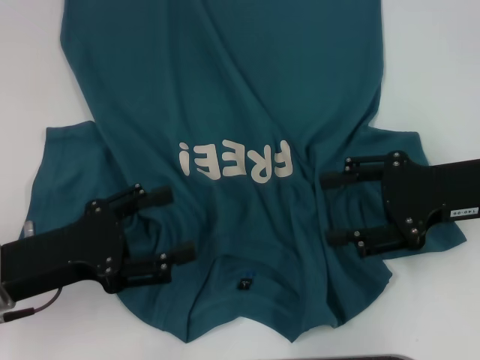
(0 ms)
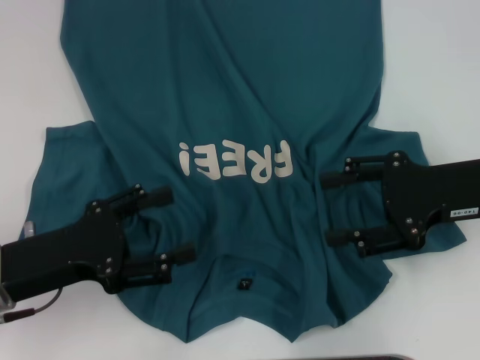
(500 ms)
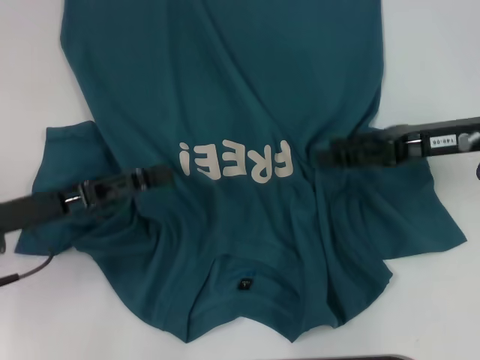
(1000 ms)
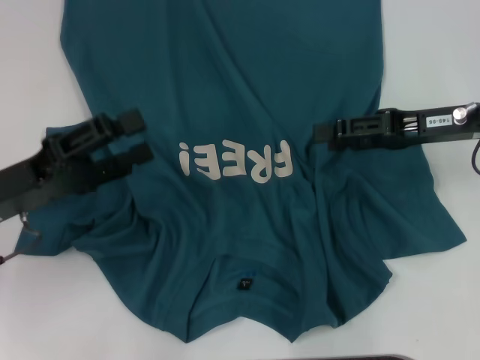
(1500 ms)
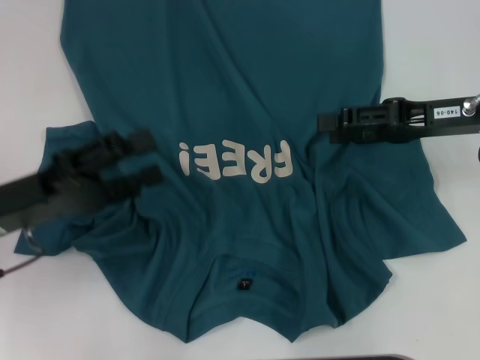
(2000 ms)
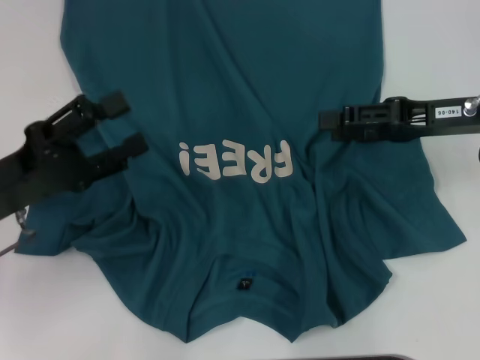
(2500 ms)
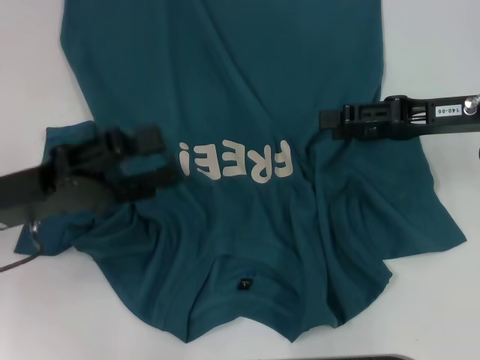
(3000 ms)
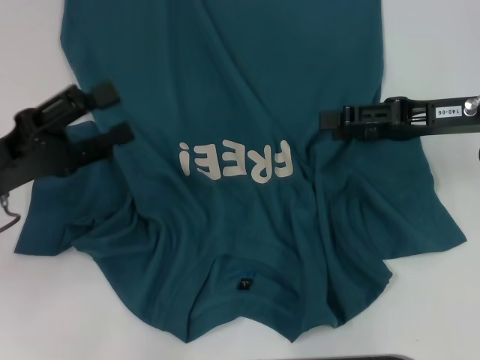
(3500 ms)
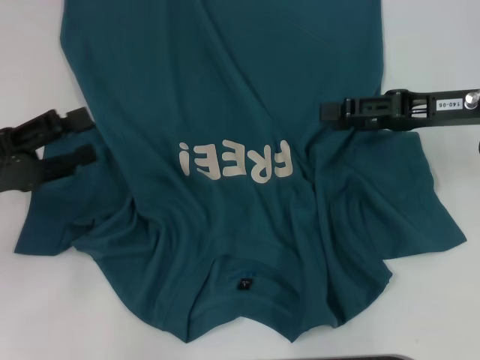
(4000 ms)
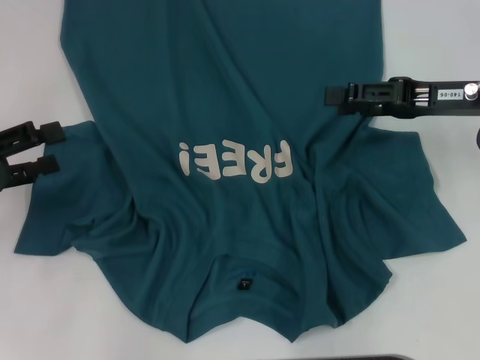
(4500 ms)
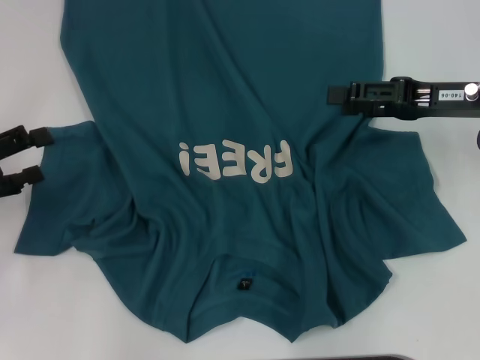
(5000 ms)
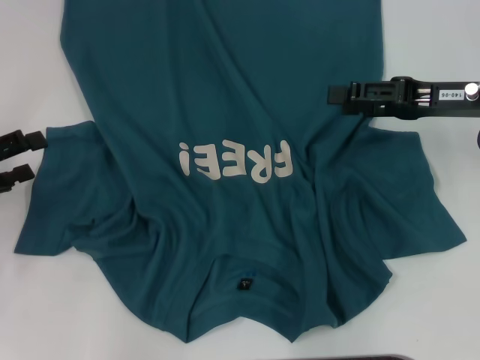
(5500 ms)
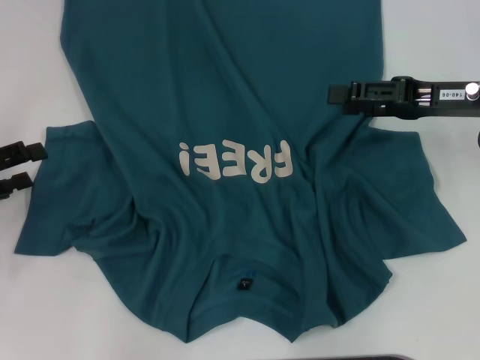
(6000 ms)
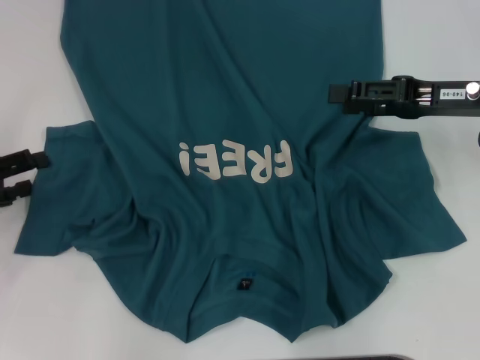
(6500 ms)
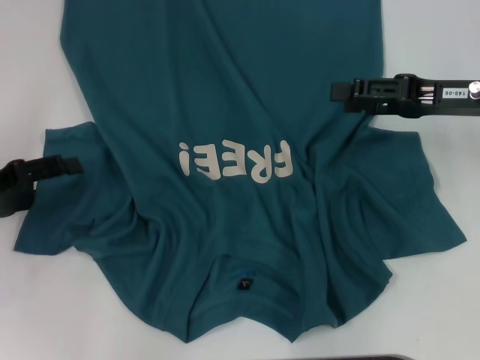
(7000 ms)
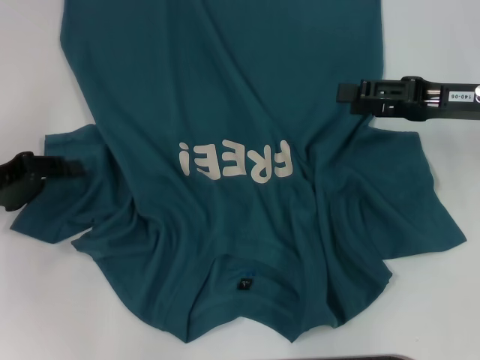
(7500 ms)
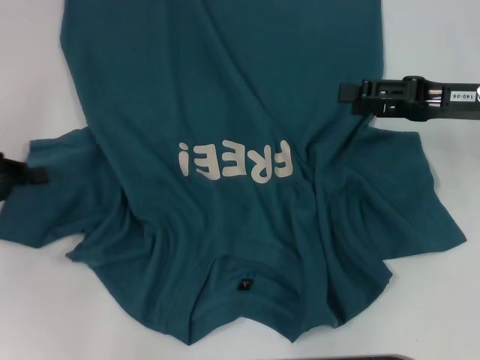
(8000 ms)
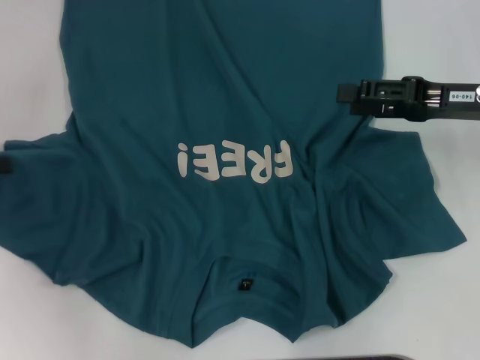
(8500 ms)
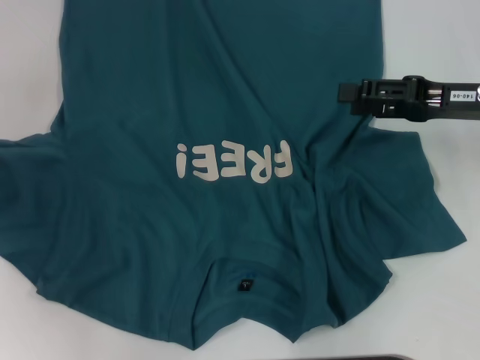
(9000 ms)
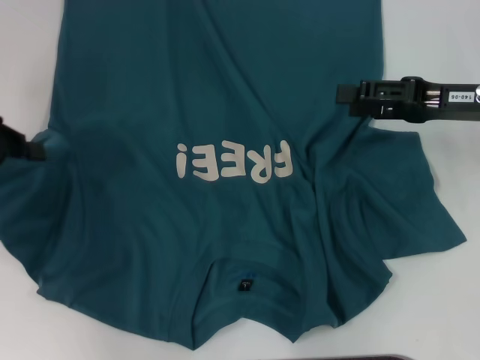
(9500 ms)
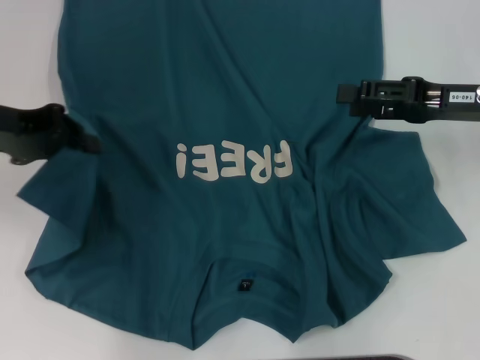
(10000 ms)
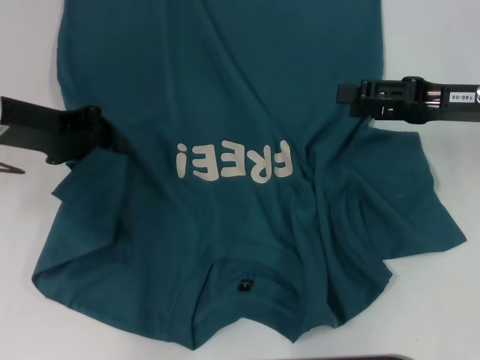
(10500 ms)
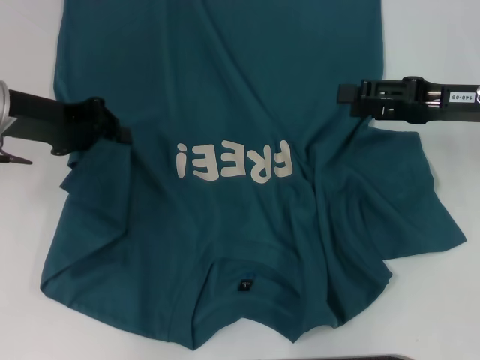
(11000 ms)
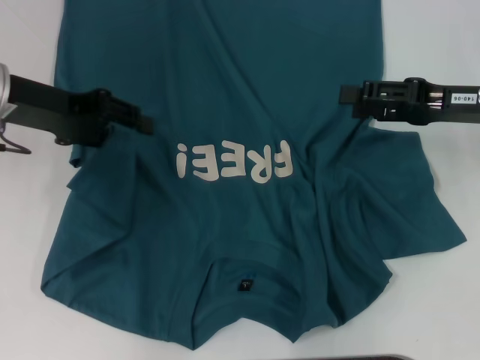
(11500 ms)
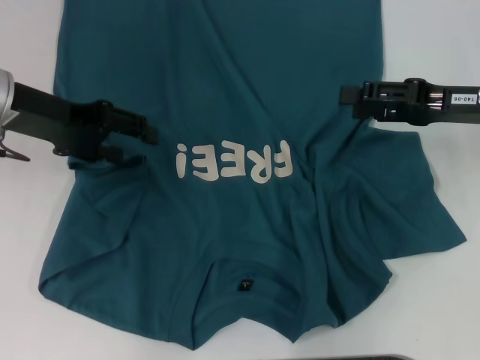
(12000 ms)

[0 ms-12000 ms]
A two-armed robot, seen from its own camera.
0 ms to 2000 ms: The right gripper is displaced forward by some 5 cm.
2000 ms to 4000 ms: The grippers stay close to where they were, moving slightly.
4000 ms to 6000 ms: The left gripper is displaced to the left by about 5 cm.
6000 ms to 8000 ms: The left gripper closes its fingers.
8000 ms to 10000 ms: The left gripper shifts roughly 10 cm upward and to the right.
10000 ms to 12000 ms: The left gripper opens up.

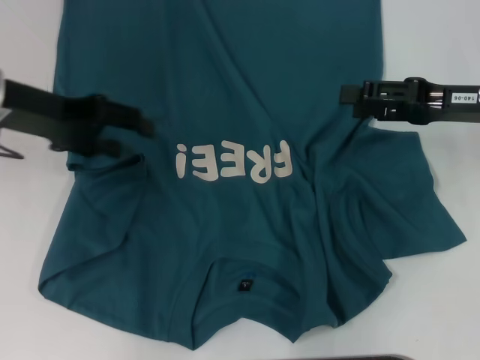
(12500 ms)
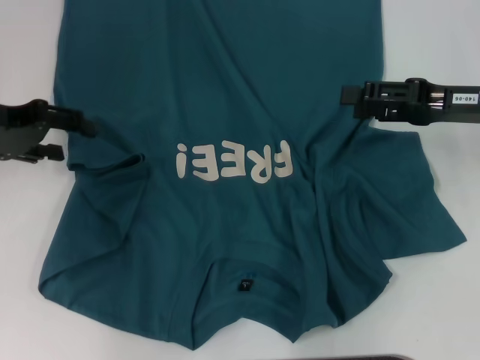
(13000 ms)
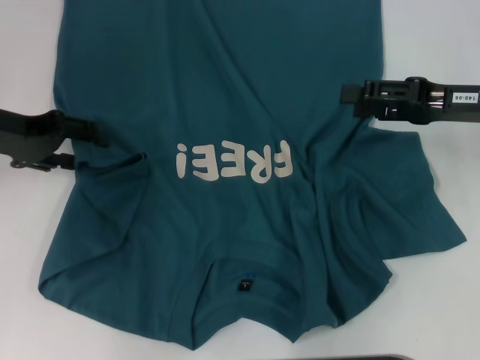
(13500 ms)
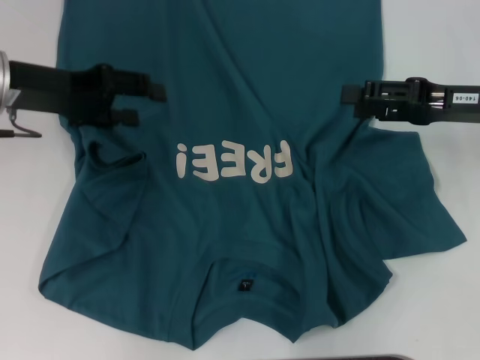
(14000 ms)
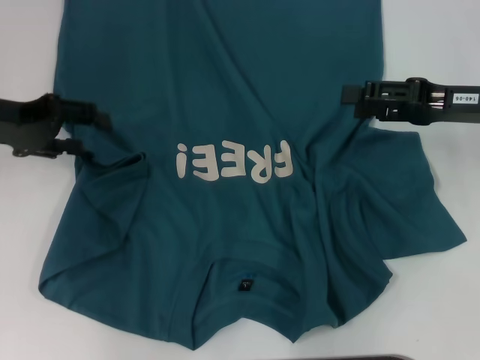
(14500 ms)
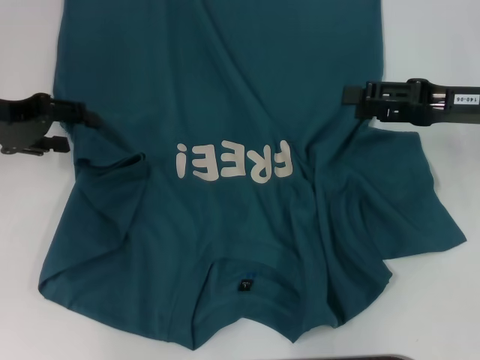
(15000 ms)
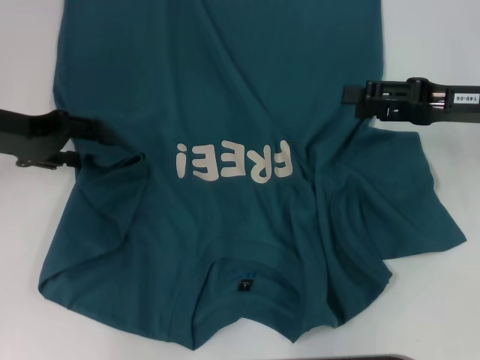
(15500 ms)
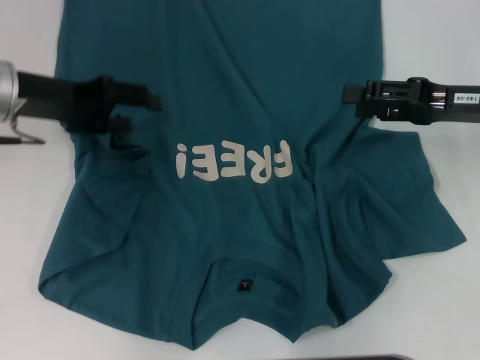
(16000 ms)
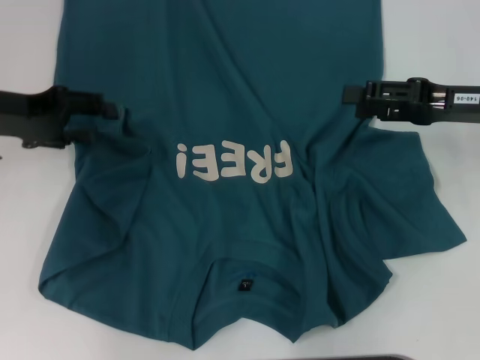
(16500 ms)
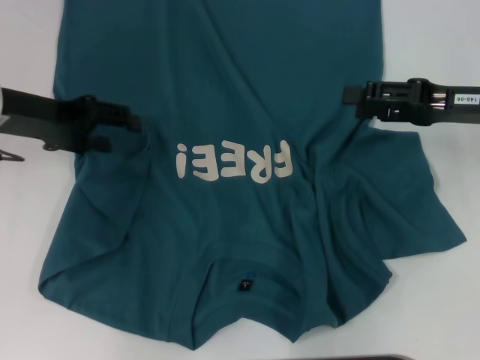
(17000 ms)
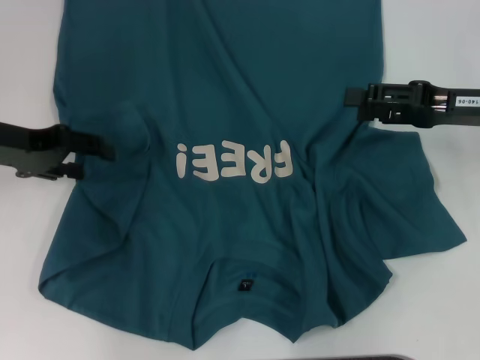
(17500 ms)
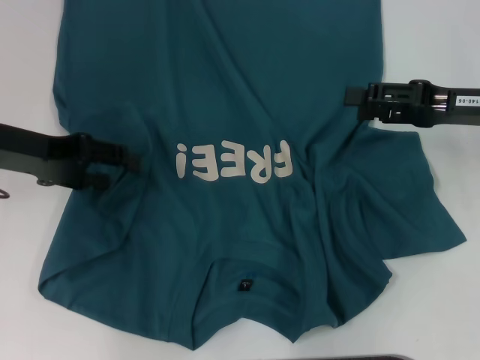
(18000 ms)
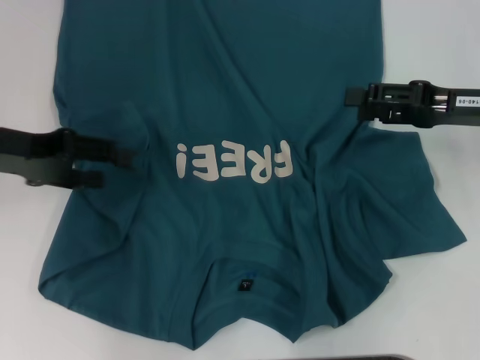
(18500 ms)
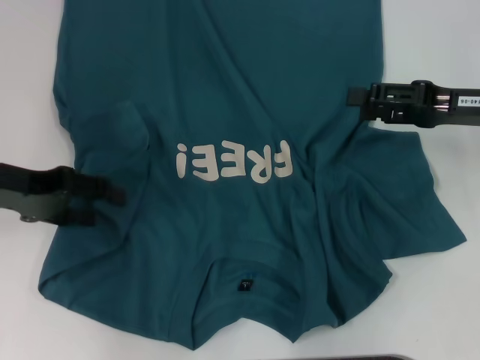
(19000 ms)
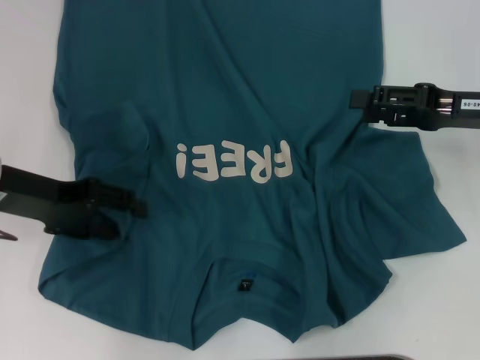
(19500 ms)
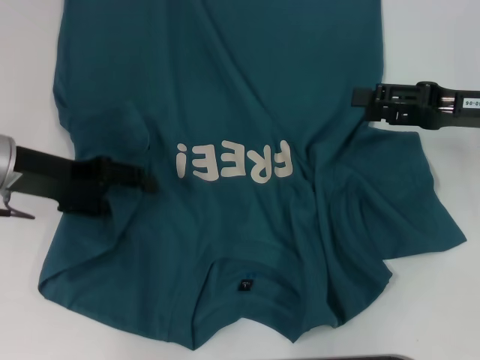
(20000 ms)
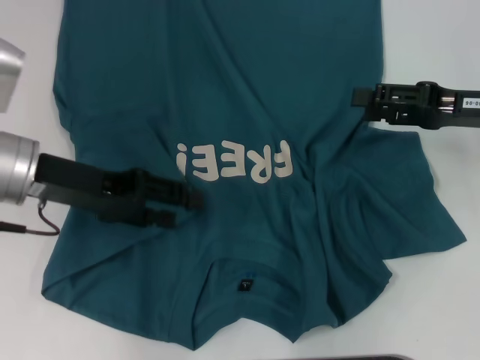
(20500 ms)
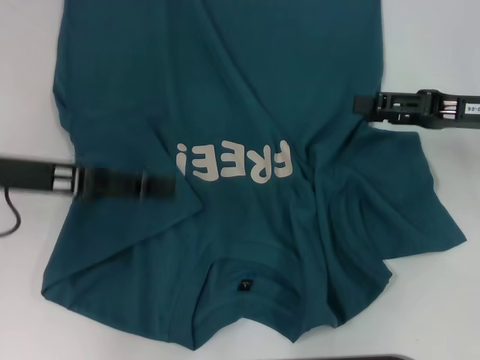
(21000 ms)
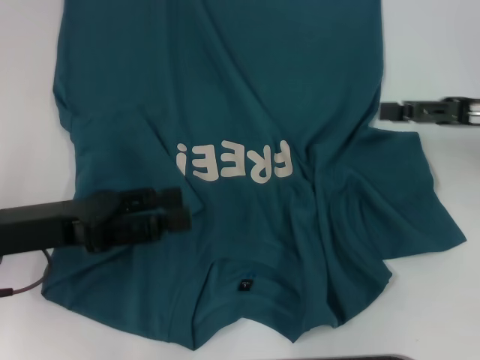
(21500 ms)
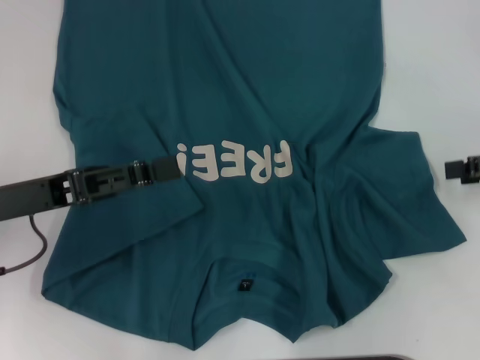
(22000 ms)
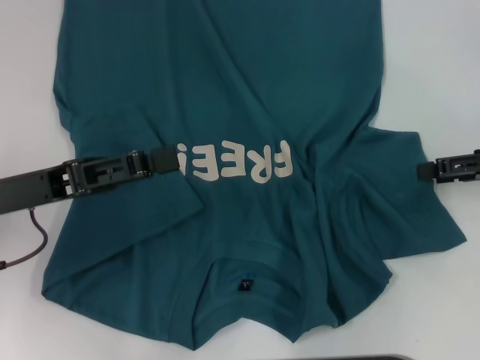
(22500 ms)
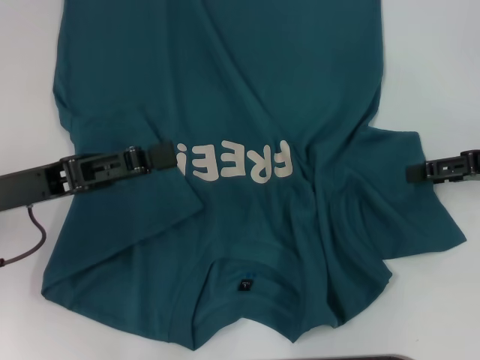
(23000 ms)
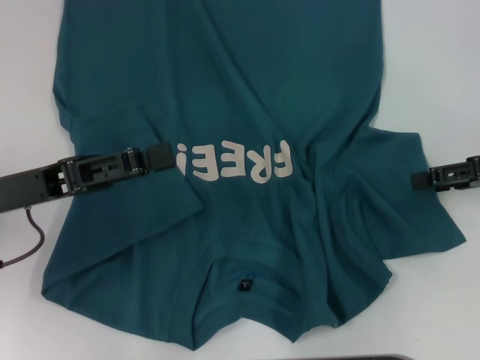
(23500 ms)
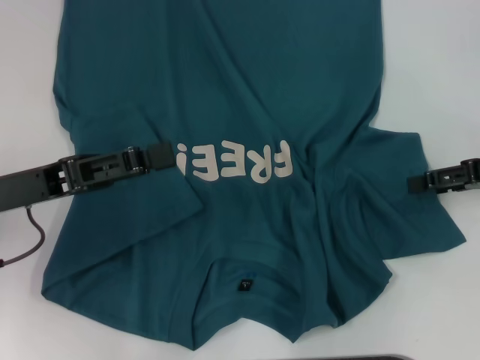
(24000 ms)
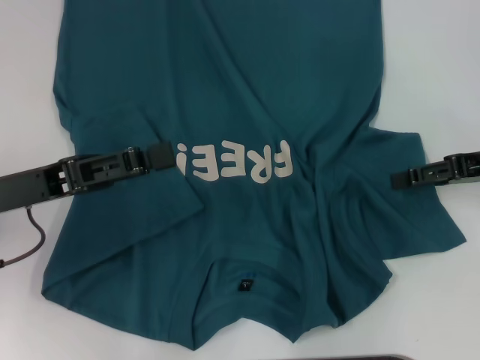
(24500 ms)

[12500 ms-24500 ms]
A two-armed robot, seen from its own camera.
Step, 12500 ms to 20500 ms: Fold the bottom left sleeve with your left hand.
12500 ms to 14500 ms: The left gripper goes left and right, roughly 5 cm each way, reversing 2 times.
14500 ms to 16500 ms: The grippers move only a little.
18500 ms to 20500 ms: The left gripper is displaced to the right by roughly 5 cm.
20500 ms to 22500 ms: The right gripper is displaced to the right by about 5 cm. The left gripper moves backward, about 5 cm.
22500 ms to 24500 ms: The grippers make only small movements.

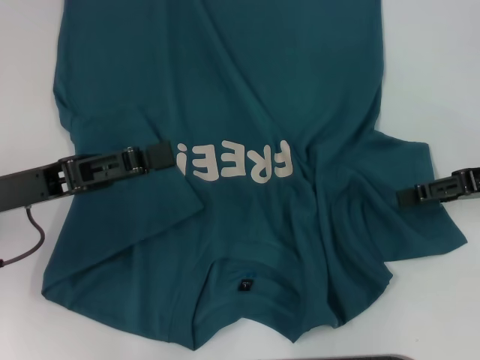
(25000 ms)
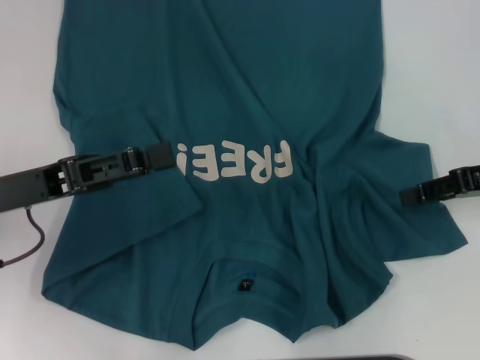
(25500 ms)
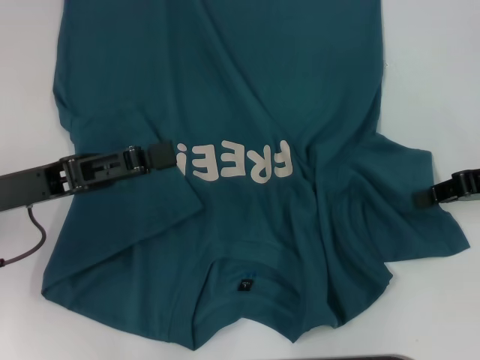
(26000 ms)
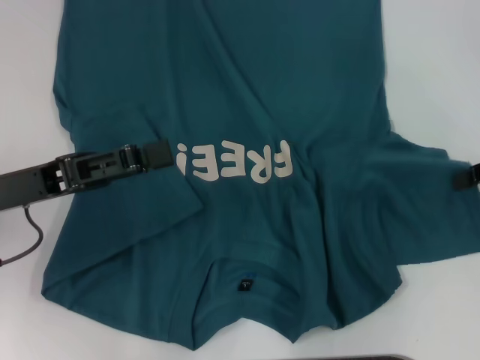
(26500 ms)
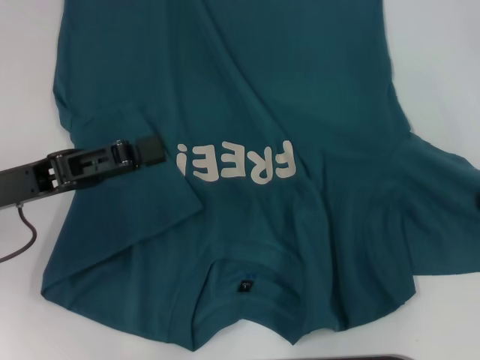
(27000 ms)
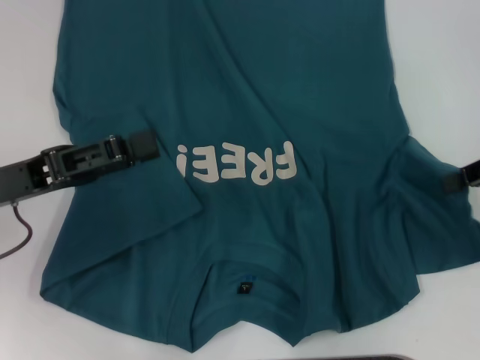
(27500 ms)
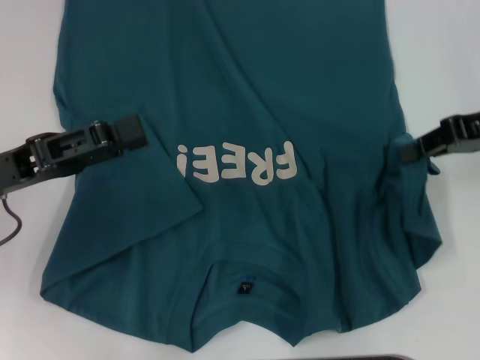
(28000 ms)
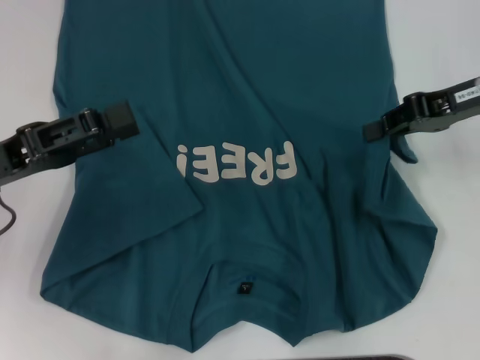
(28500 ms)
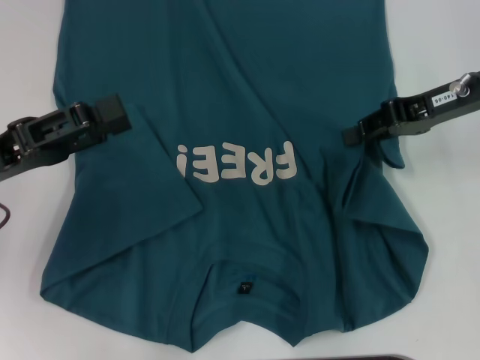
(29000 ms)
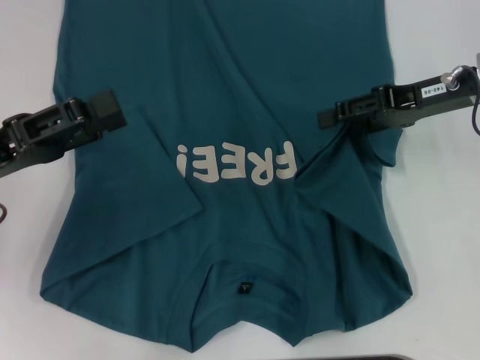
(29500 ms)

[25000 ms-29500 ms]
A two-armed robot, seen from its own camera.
25000 ms to 27000 ms: The right gripper changes place by approximately 5 cm, and closes its fingers.
27000 ms to 29500 ms: The right gripper is displaced to the left and forward by approximately 15 cm, and opens its fingers.
